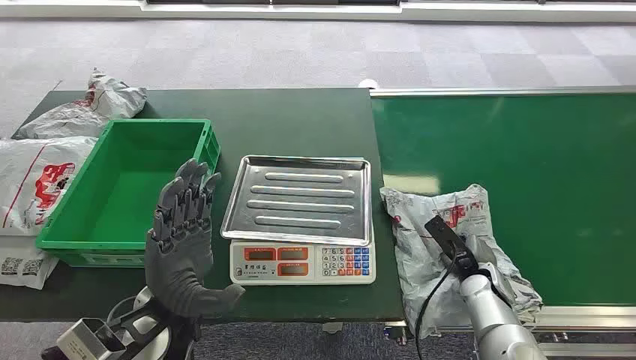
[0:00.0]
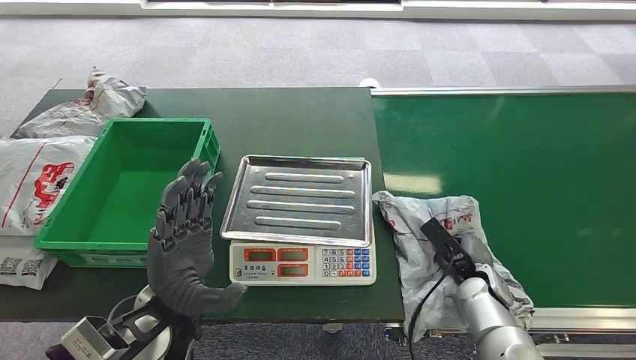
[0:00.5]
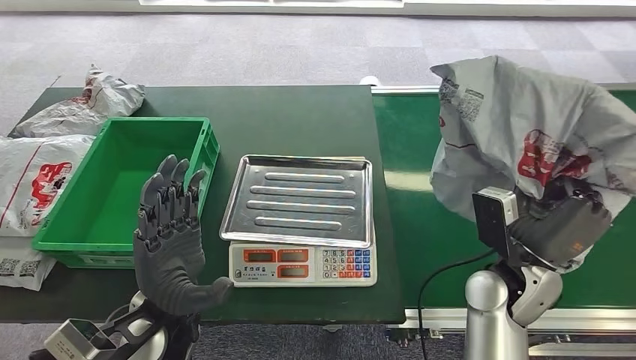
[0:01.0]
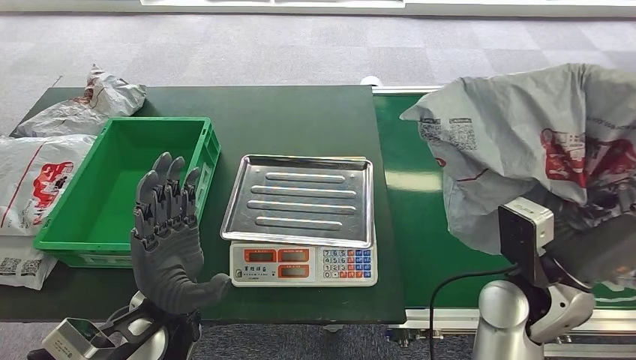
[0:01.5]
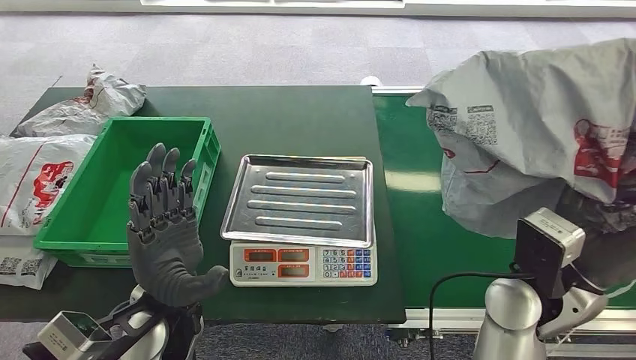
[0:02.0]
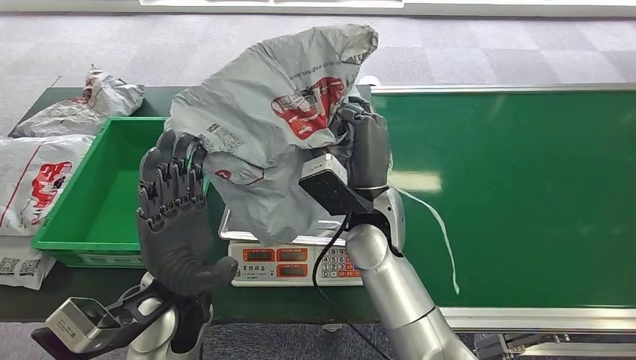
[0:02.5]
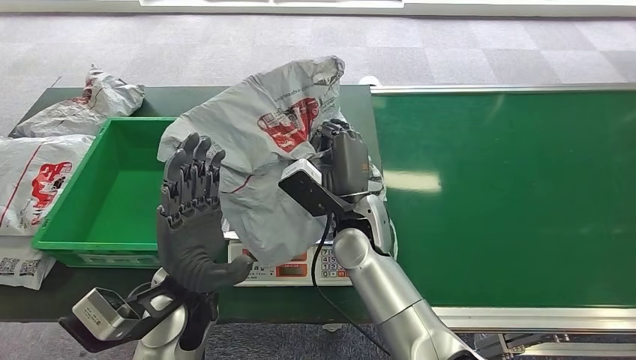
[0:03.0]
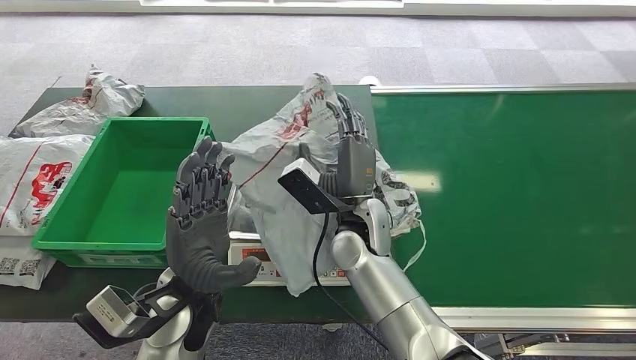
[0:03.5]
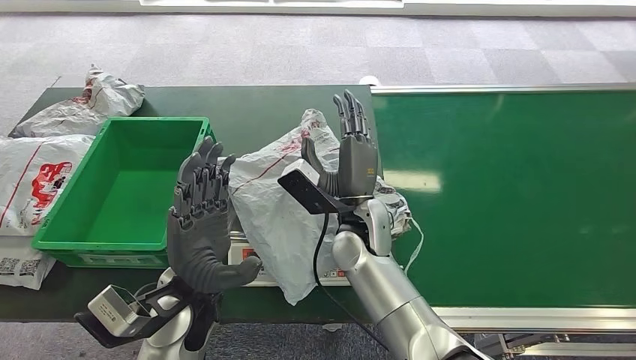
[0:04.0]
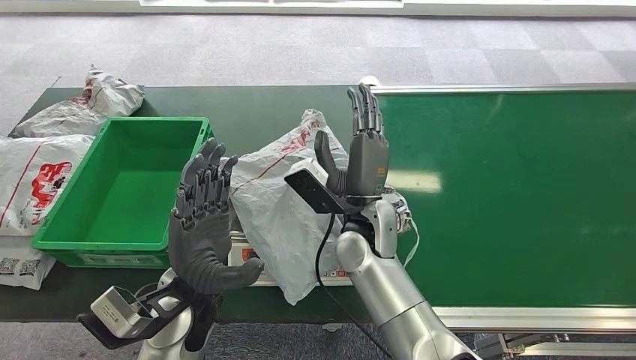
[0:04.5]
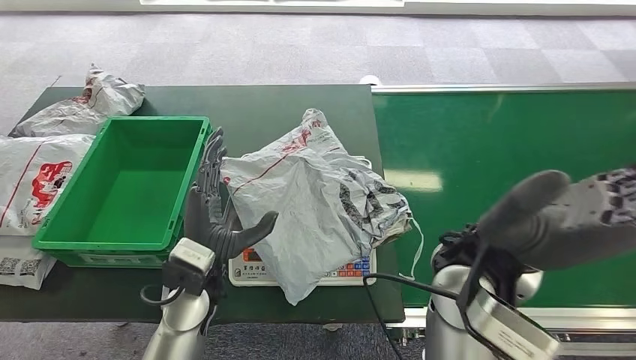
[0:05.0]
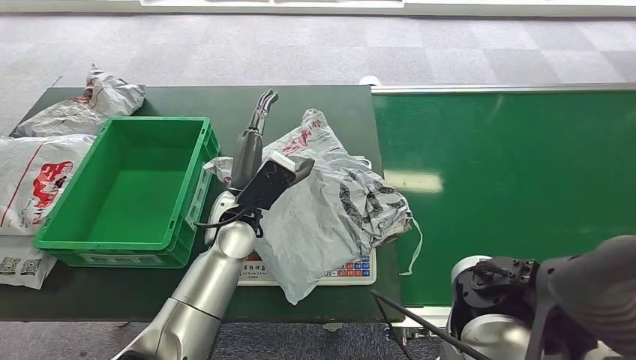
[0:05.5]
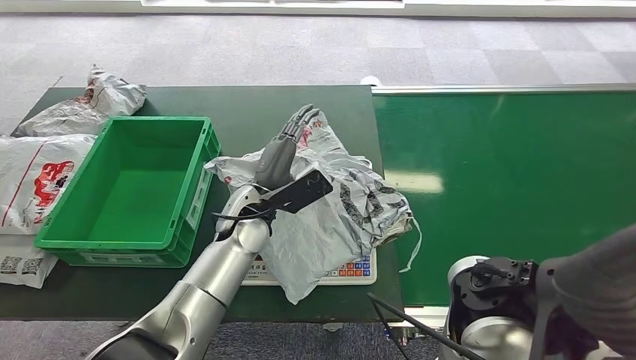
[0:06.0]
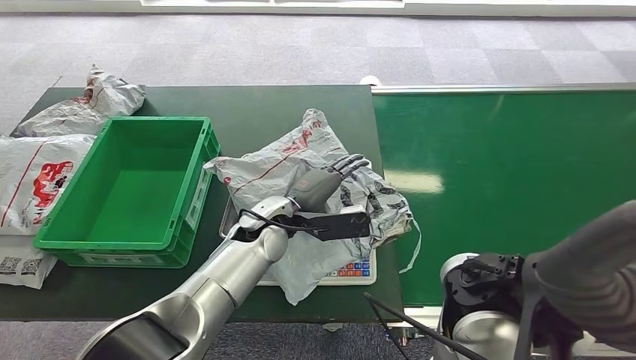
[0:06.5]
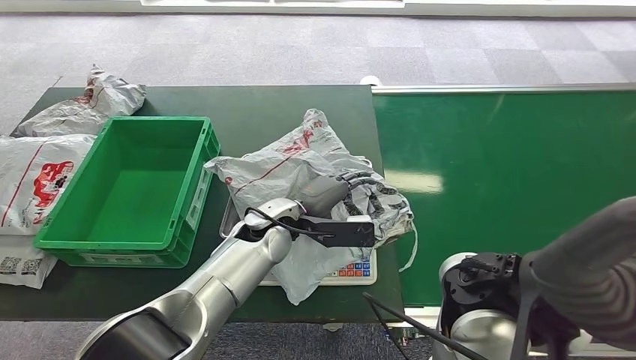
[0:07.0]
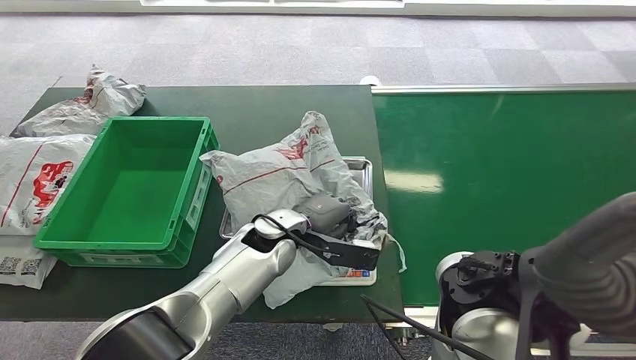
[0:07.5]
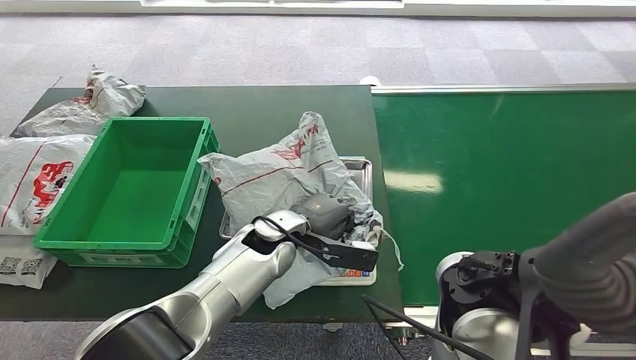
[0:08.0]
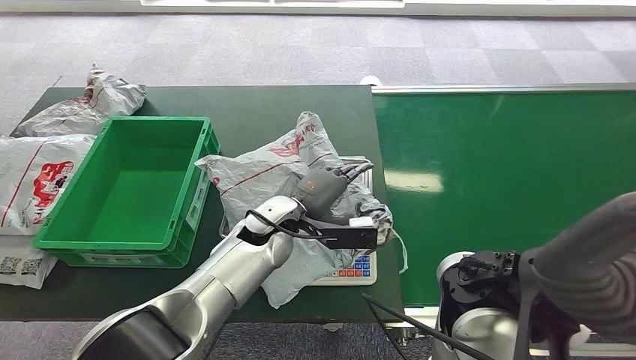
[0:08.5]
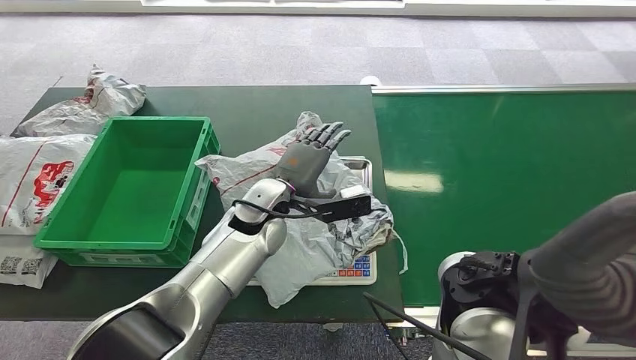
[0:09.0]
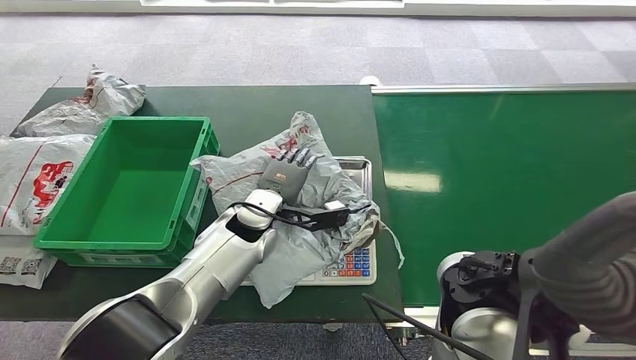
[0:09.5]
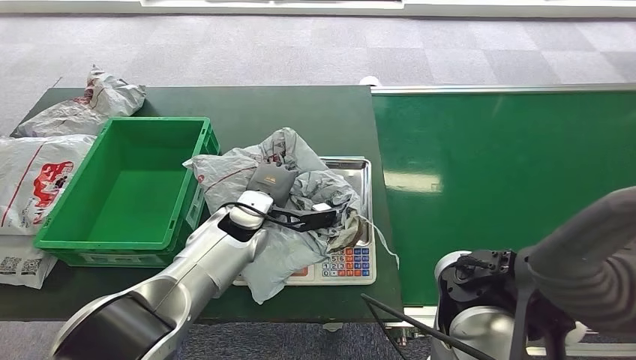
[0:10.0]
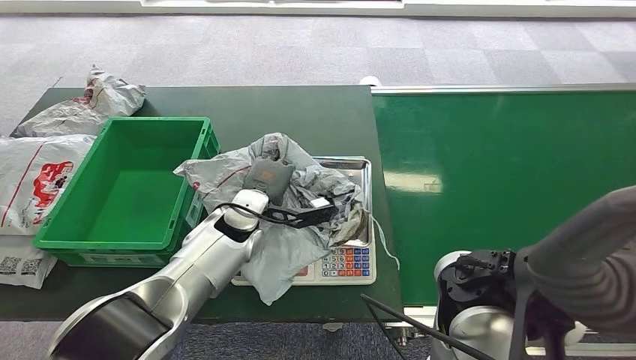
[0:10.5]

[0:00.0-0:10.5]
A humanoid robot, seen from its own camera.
Step, 0:00.0 to 0:01.0: Pick up the package from the conveyor belt.
Step, 0:01.5 to 0:04.5: Place the package onto the inbound machine.
0:04.0 to 0:06.5: The left hand goes some 15 cm forward and to the right. Meanwhile the right hand moves upward, backward and to the right, about 25 cm.
0:08.5 to 0:10.5: The left hand shifts roughly 5 cm to the left.

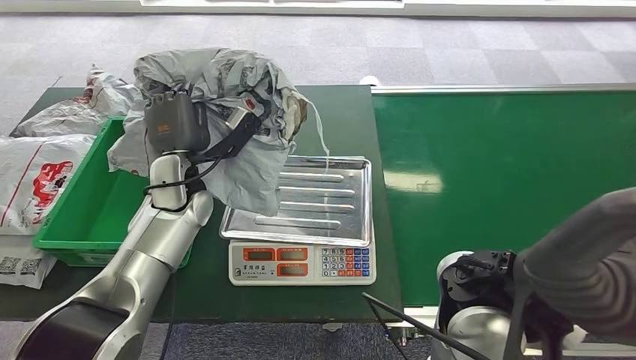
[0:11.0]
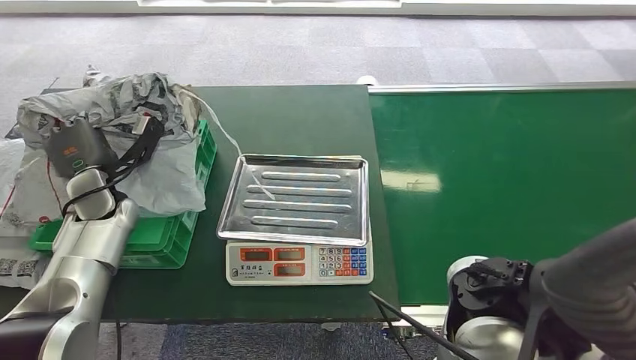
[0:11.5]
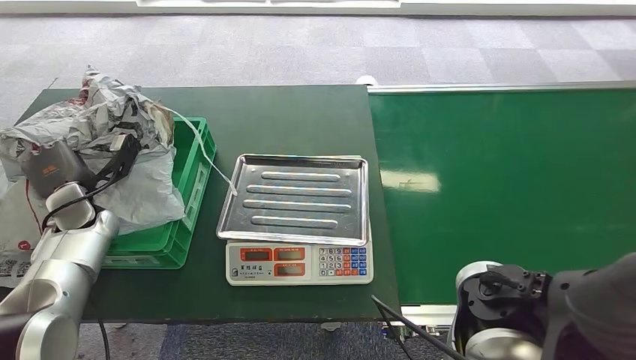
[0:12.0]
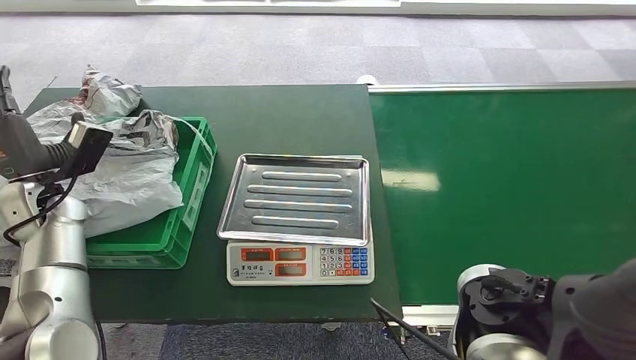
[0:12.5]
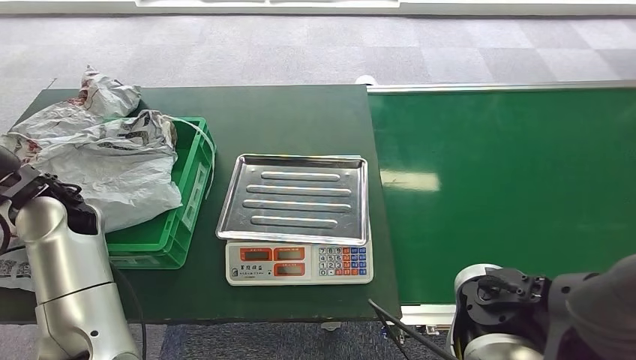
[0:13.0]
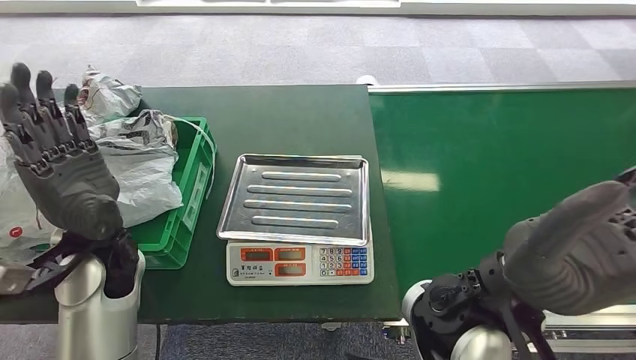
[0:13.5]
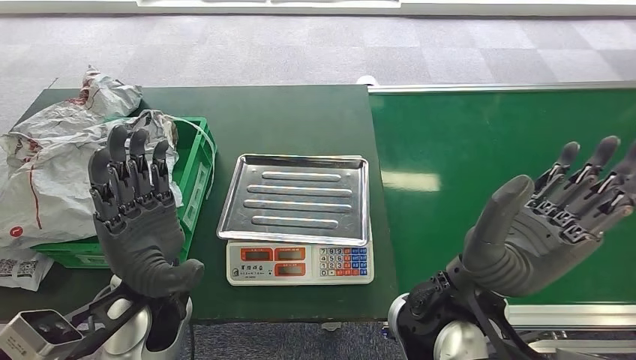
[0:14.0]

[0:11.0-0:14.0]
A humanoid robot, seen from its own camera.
Step, 0:11.5 to 0:14.0: Place the package into the parcel locker.
